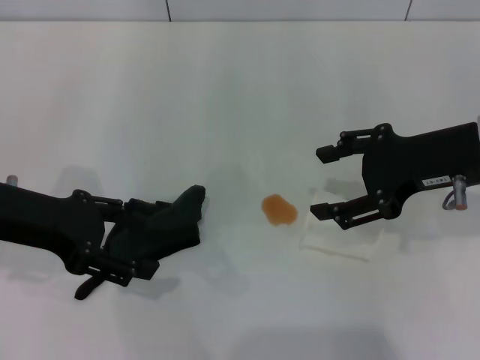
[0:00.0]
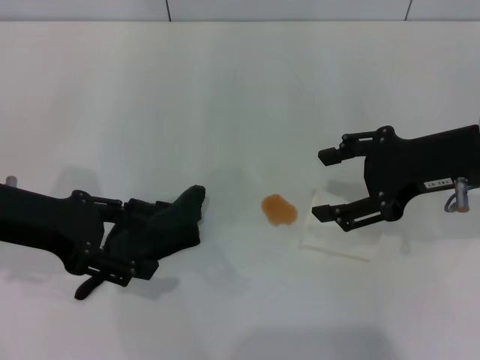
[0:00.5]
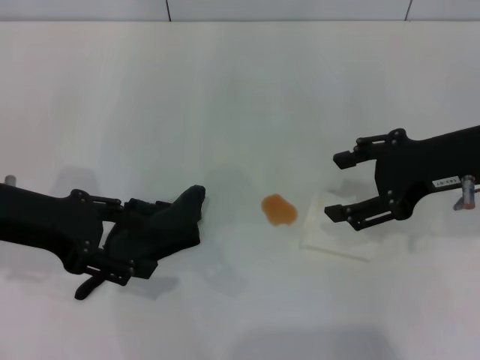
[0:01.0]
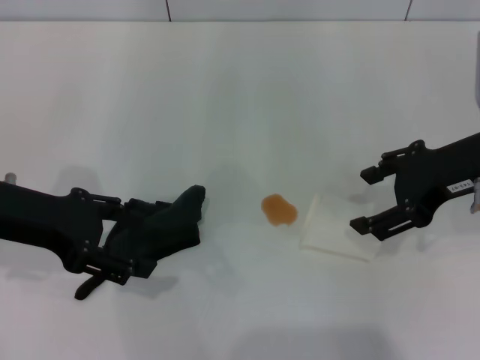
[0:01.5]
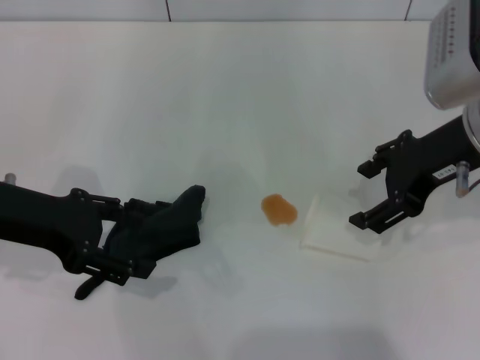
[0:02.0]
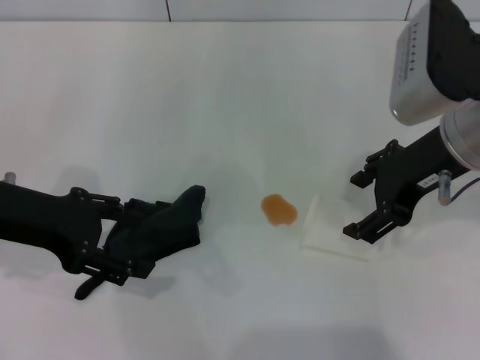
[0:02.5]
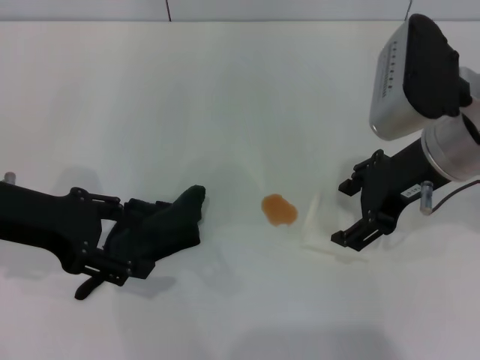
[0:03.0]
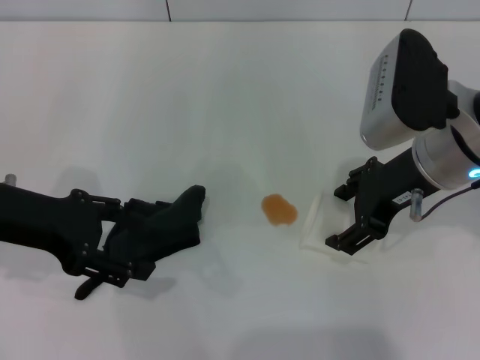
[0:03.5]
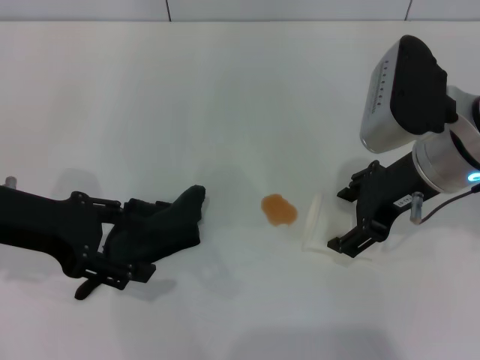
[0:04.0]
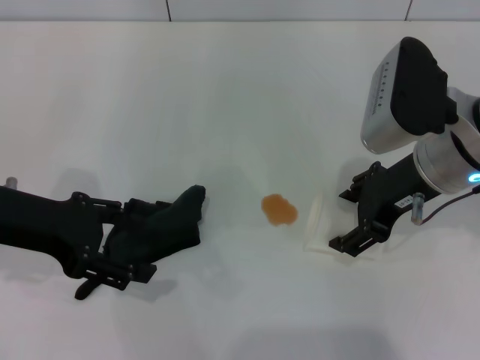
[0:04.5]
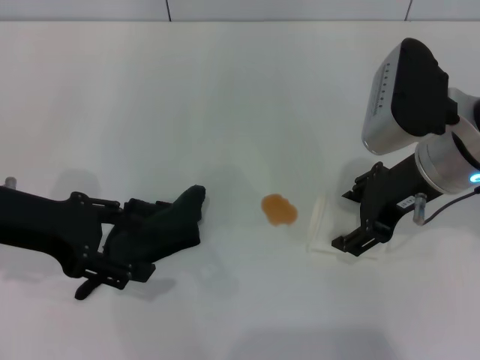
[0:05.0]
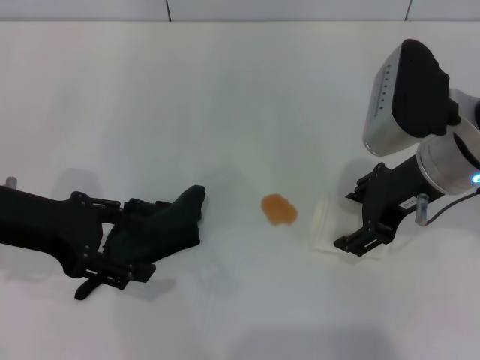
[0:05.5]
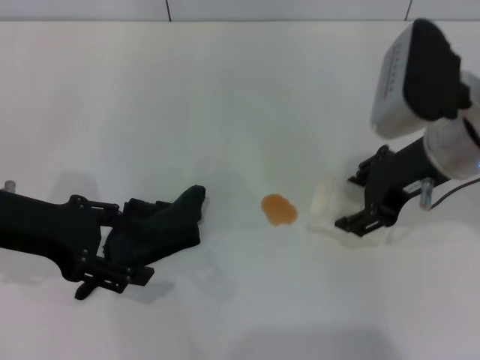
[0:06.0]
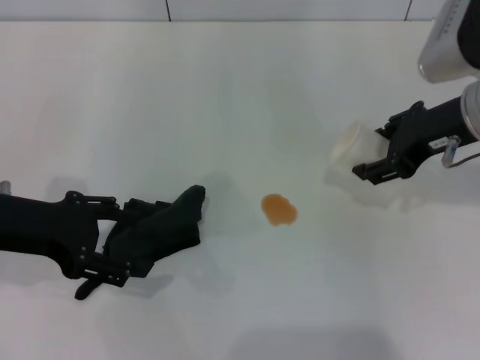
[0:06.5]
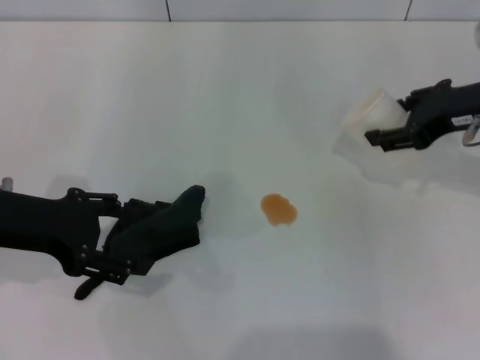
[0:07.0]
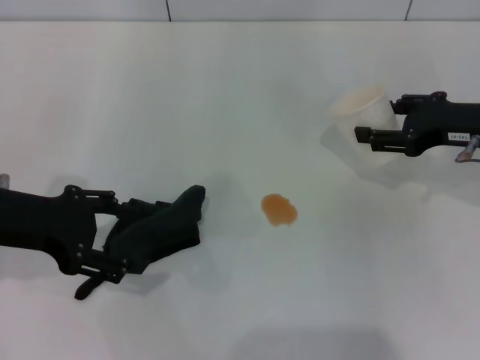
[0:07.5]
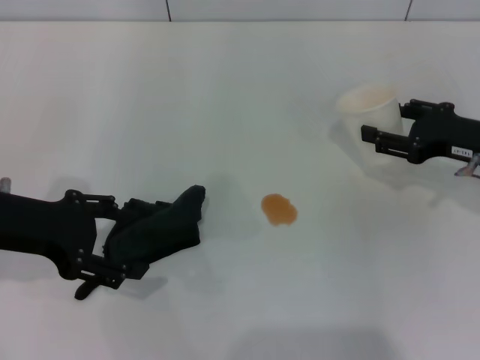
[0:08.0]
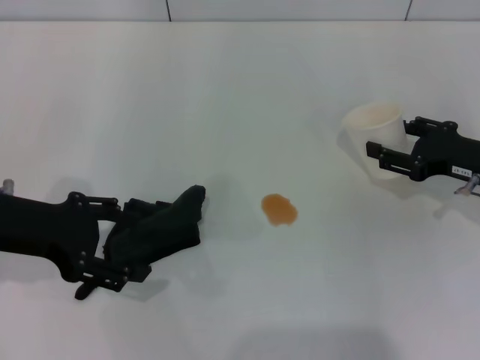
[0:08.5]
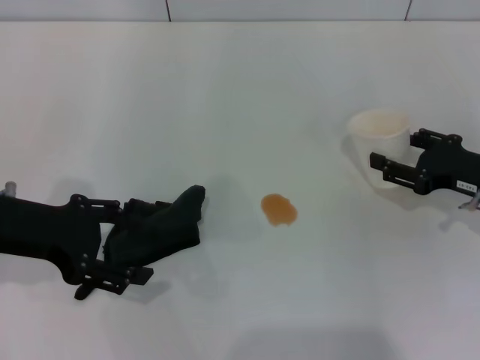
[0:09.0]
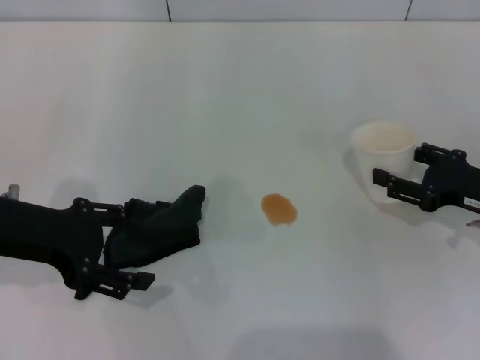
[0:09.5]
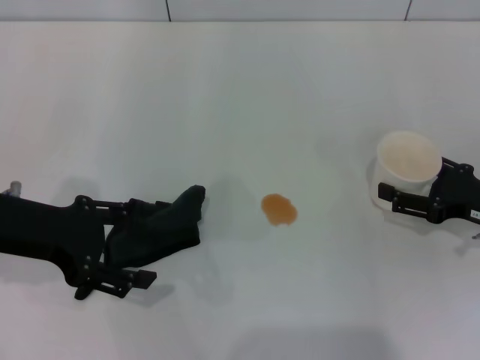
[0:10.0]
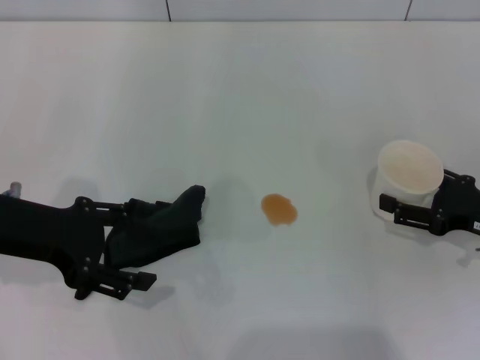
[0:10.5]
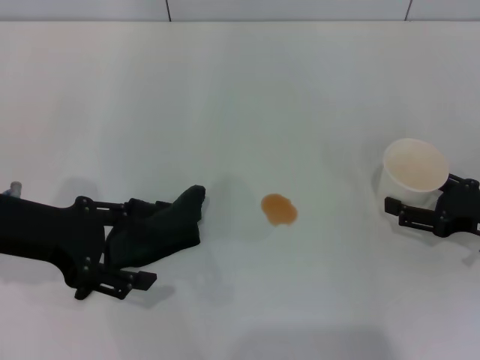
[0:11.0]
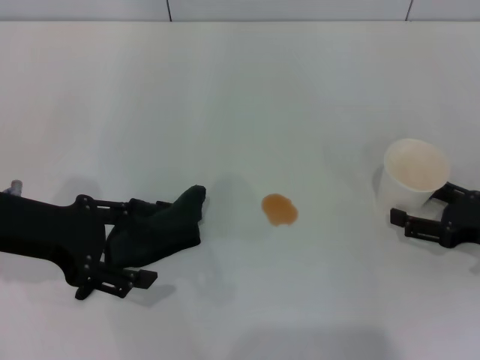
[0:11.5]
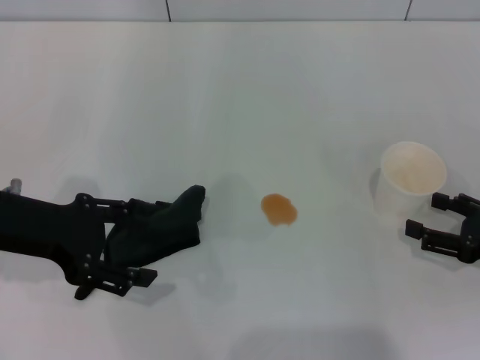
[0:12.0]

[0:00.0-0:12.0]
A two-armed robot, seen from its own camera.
Step, 0:00.0 to 0:05.0: Grasp the paper cup with the right gripper.
Step, 0:06.0 to 0:11.5: Stand the paper cup upright with the right gripper.
0:02.0 to 0:04.0: The right gripper moves approximately 5 cm.
0:04.0 to 0:06.0: The right gripper closes its fingers.
0:06.0 to 0:08.0: The right gripper goes about 15 cm to the right and downward.
0:08.0 to 0:10.0: The right gripper travels backward by approximately 5 cm, and opens up.
0:10.0 to 0:12.0: There are only small adjustments of the grippers.

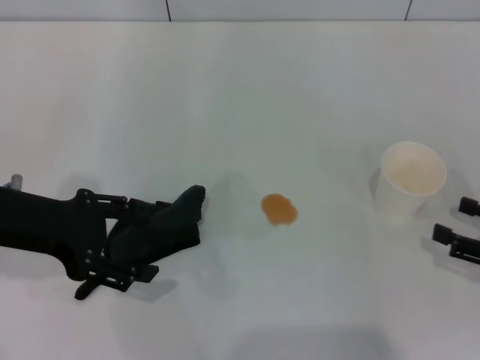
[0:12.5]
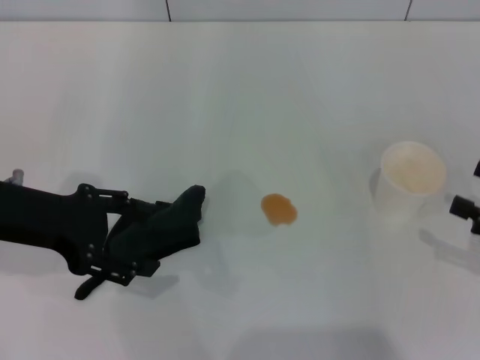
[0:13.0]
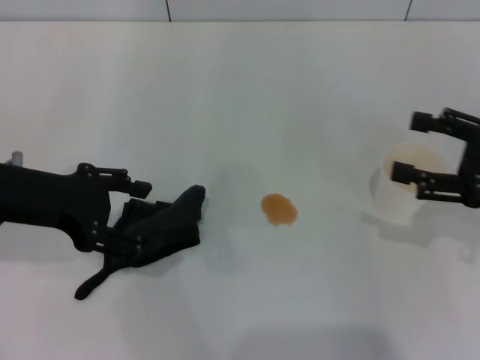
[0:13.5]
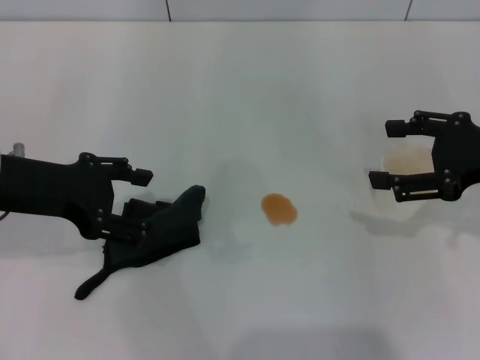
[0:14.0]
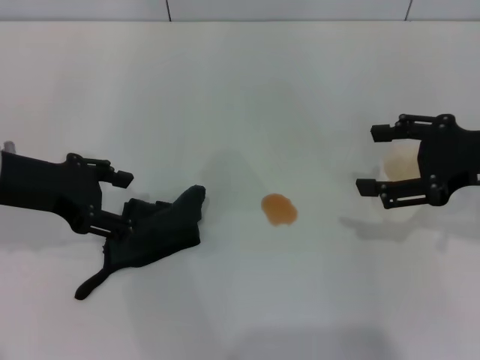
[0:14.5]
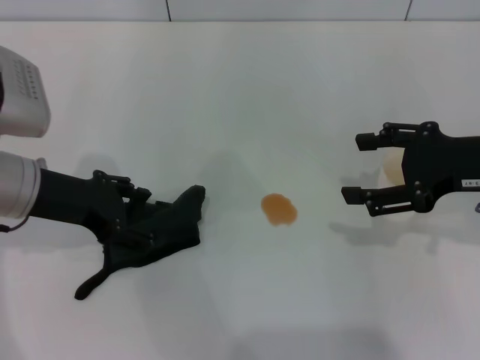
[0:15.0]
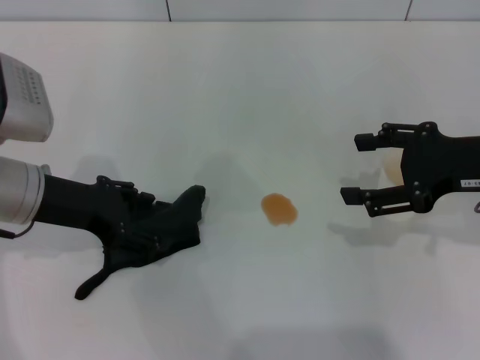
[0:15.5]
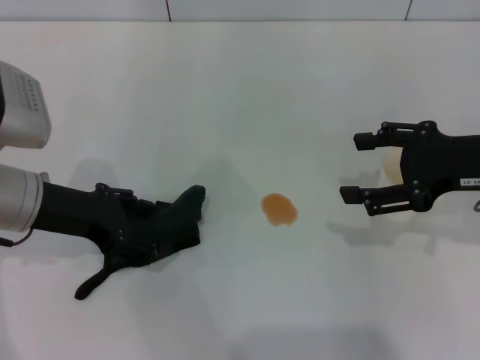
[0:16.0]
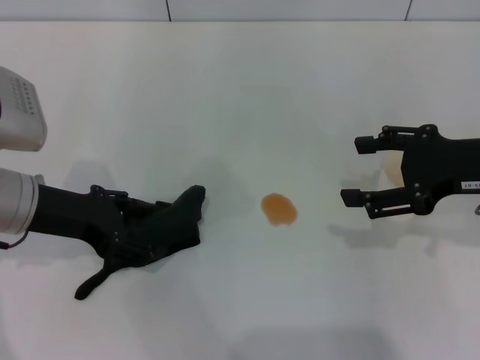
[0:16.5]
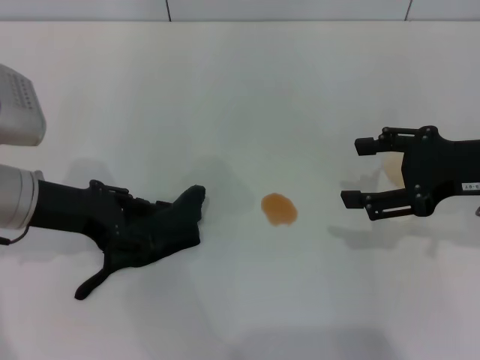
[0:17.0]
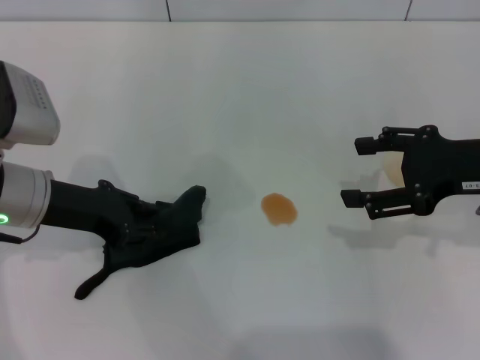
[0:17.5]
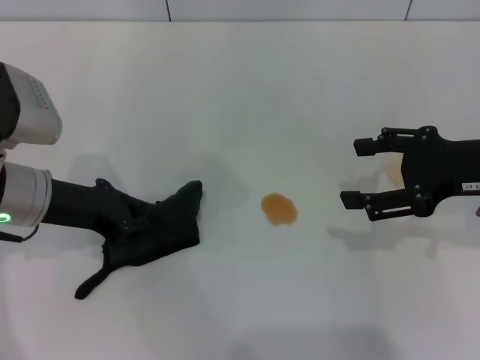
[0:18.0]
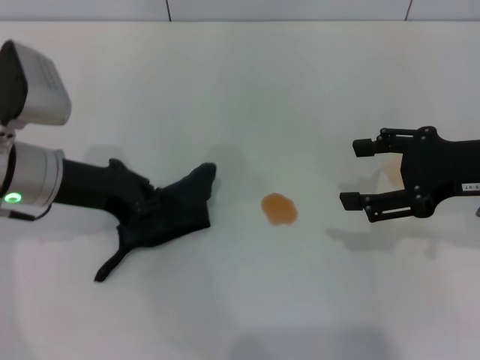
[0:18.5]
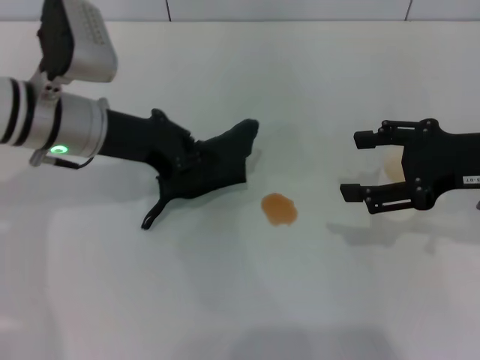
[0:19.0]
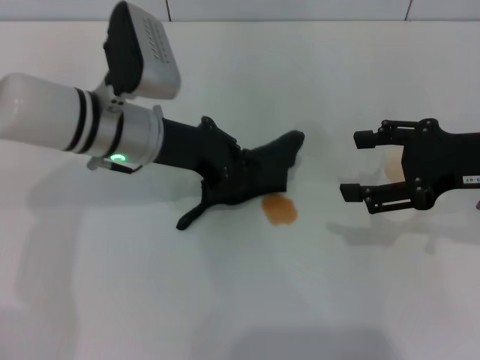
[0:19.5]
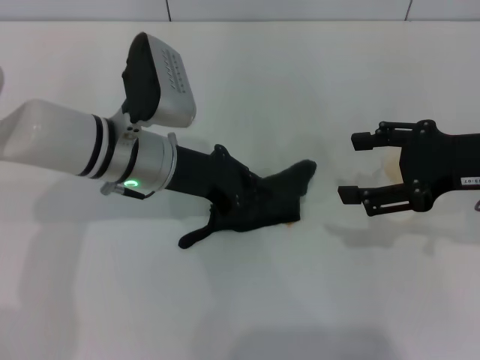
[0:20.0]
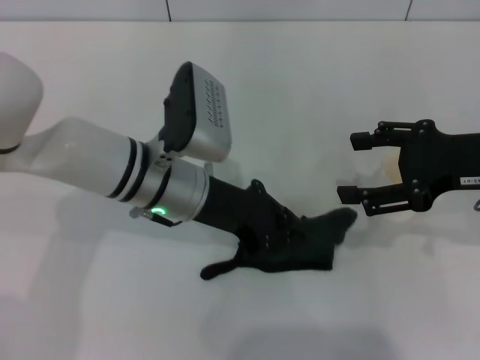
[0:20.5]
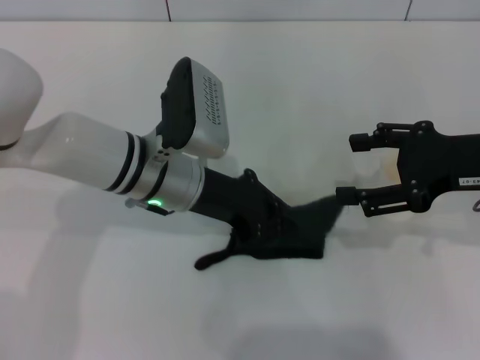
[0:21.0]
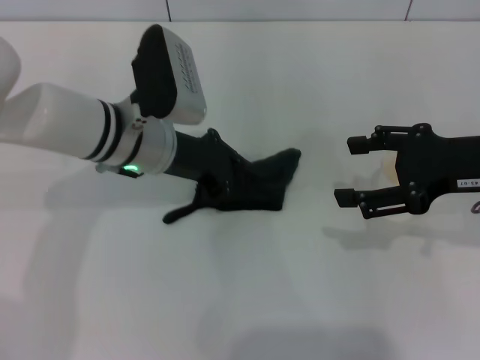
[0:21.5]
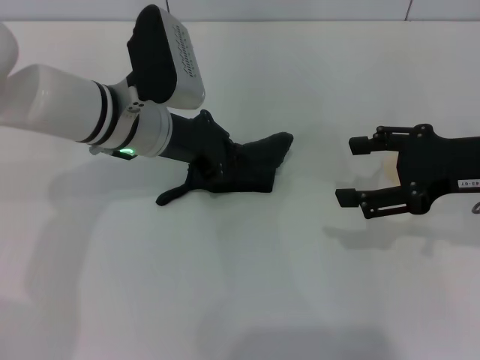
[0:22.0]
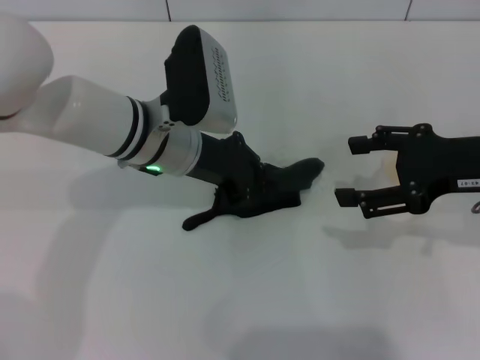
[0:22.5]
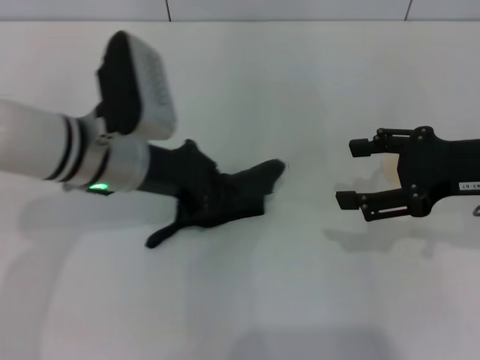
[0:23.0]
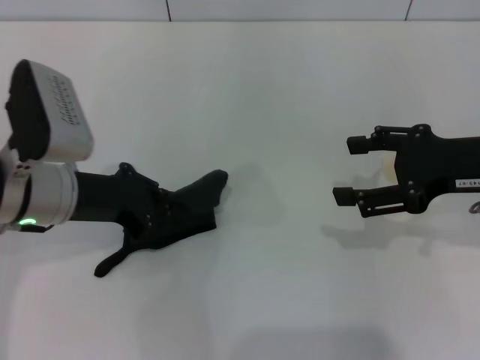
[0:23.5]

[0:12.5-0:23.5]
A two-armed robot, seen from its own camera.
Step, 0:12.5 to 0:17.5: Grasp the rag with the left gripper.
Step, 0:18.5 to 0:22.5: Wipe the stains off the table with the left gripper.
0:12.5 to 0:14.5: The right gripper is displaced upward, forward and to the left by roughly 15 cm.
0:14.5 to 0:16.0: There are only small adjustments of the grippers.
0:16.0 to 0:18.0: The left gripper closes its fingers.
0:18.0 to 0:20.0: The left gripper moves to the right, some 10 cm.
0:20.0 to 0:21.5: The grippers move only a little.
0:21.5 to 0:23.5: The left gripper goes about 10 cm to the left and backward.

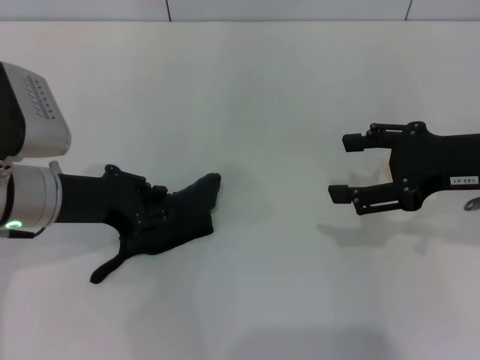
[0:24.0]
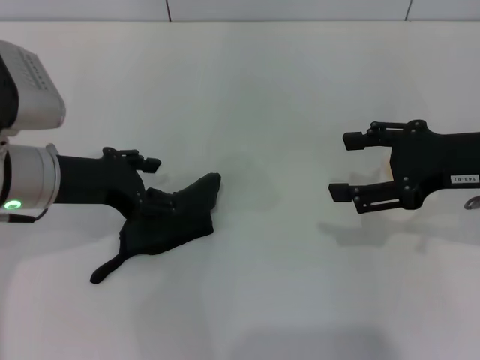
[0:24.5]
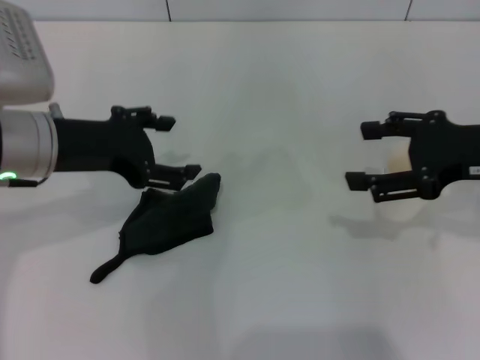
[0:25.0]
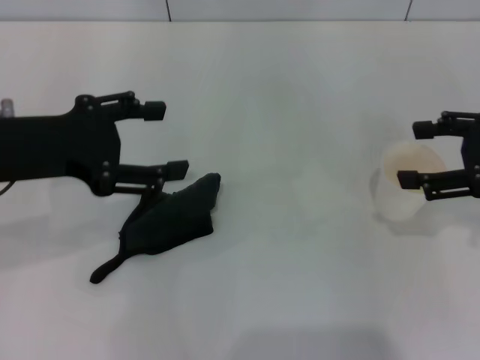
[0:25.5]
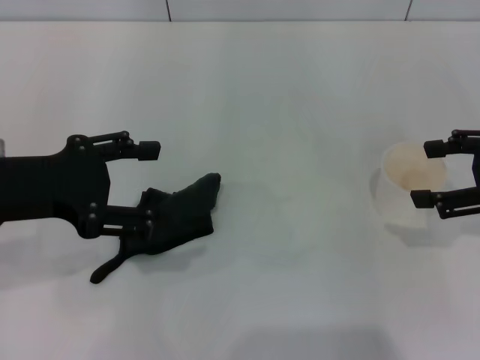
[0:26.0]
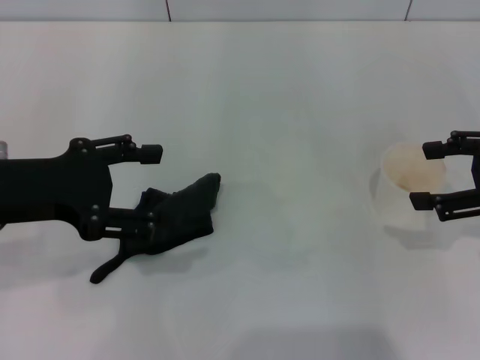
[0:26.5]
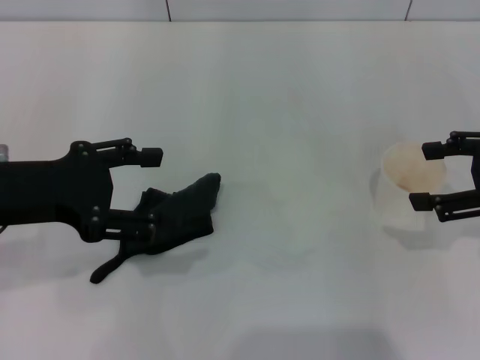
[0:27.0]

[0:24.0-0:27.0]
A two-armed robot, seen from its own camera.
0:24.0 to 0:25.5: The left gripper goes roughly 10 cm upward, and opens. Meanwhile the right gripper goes approximately 5 cm to the right.
0:25.5 to 0:27.0: The grippers make only small movements.
